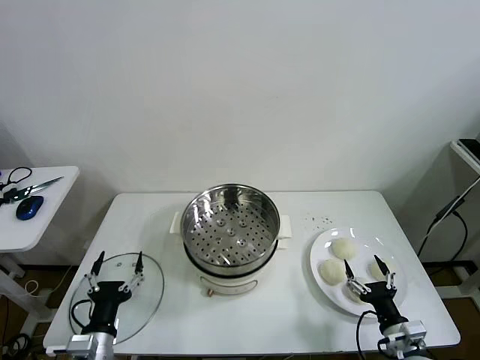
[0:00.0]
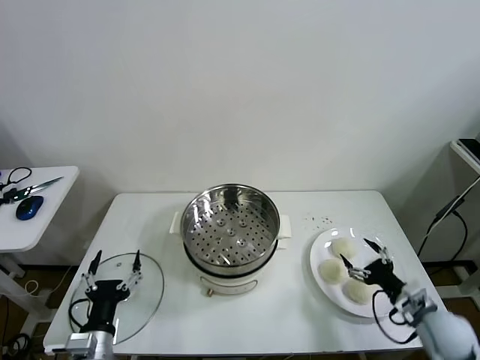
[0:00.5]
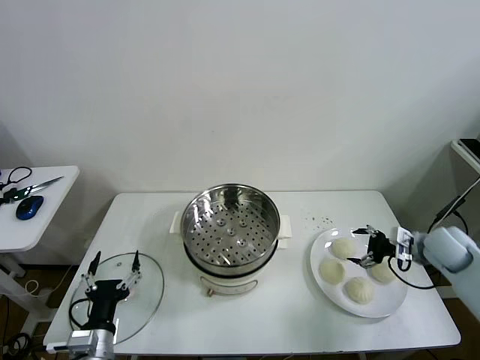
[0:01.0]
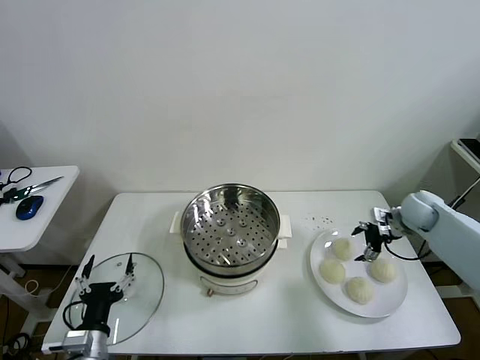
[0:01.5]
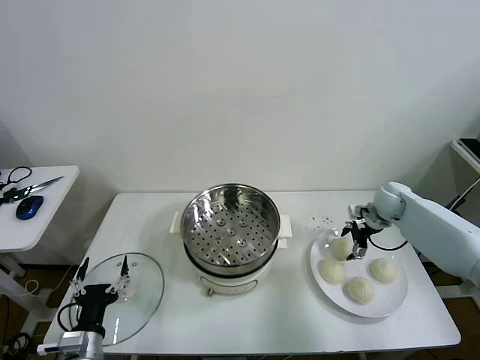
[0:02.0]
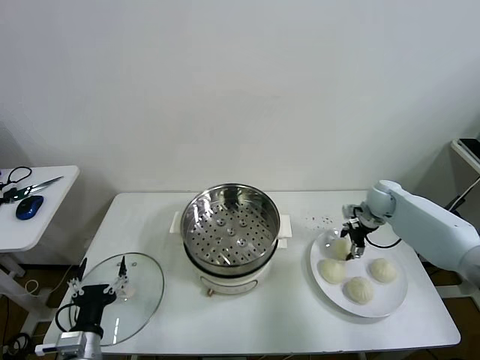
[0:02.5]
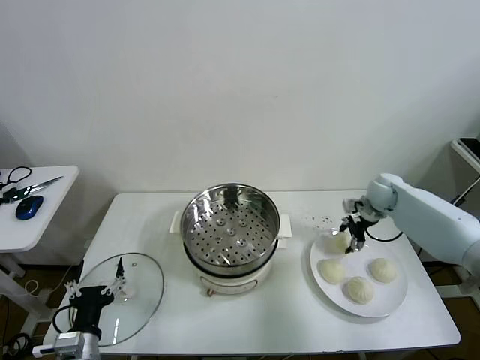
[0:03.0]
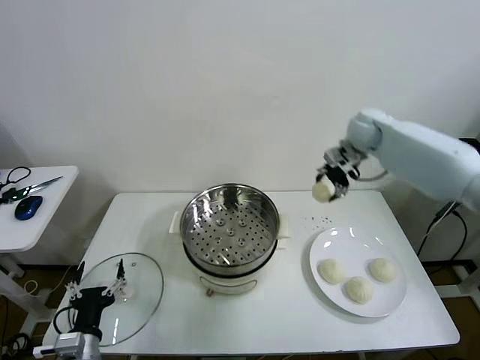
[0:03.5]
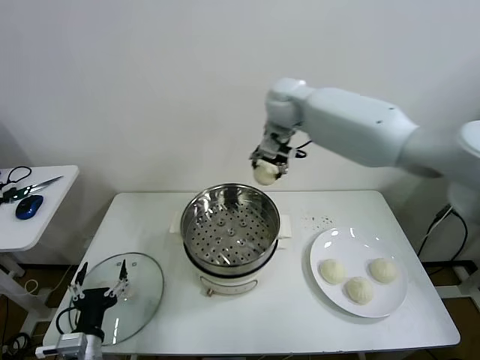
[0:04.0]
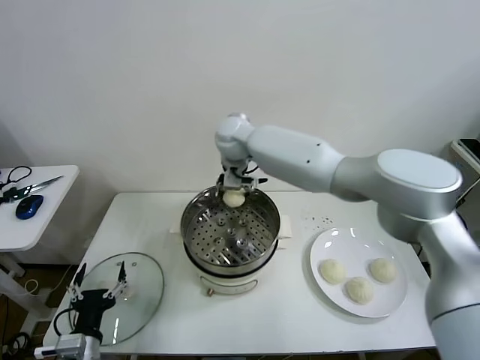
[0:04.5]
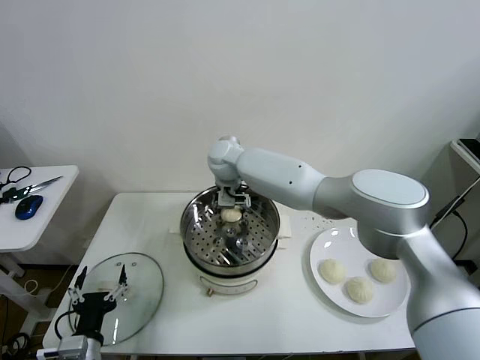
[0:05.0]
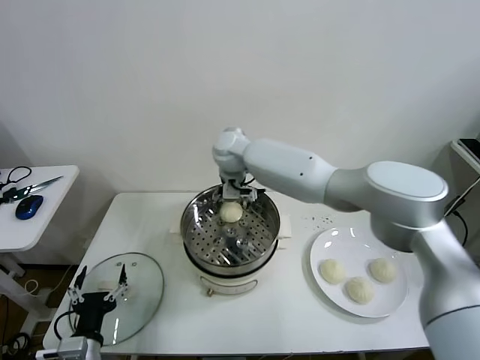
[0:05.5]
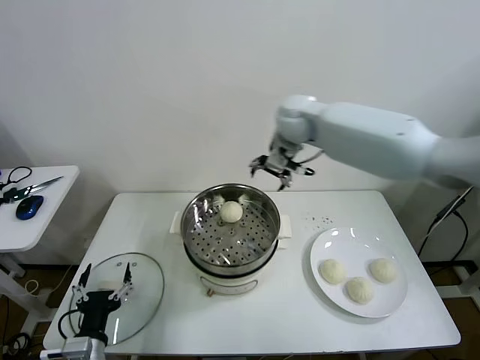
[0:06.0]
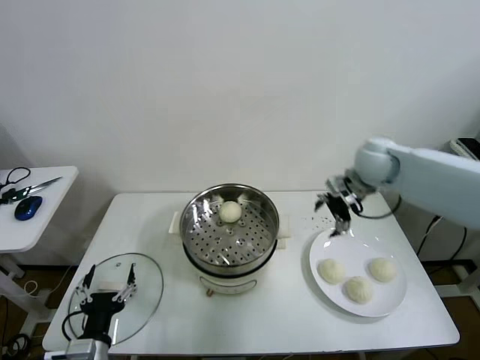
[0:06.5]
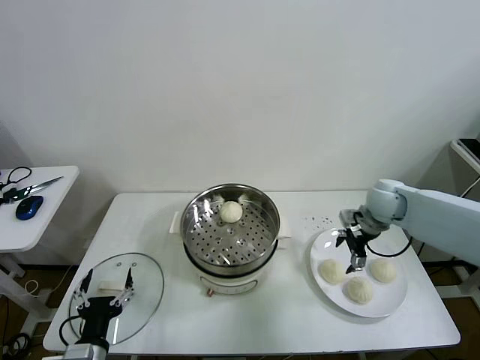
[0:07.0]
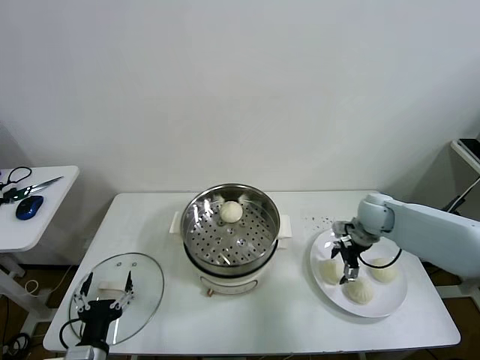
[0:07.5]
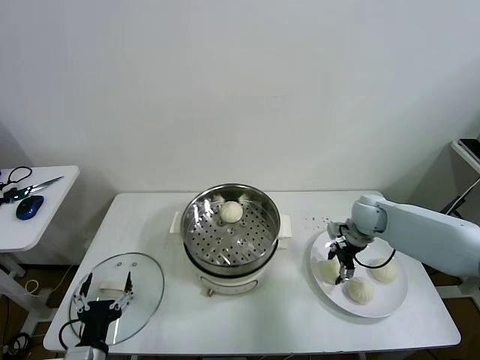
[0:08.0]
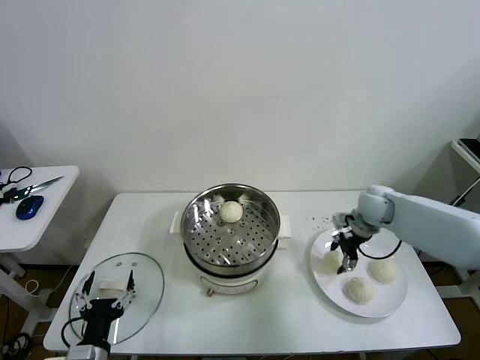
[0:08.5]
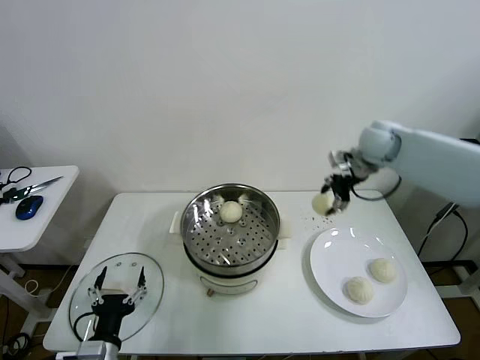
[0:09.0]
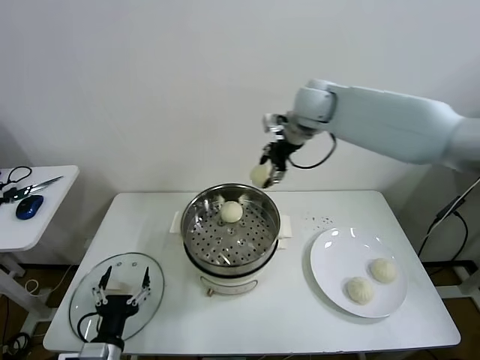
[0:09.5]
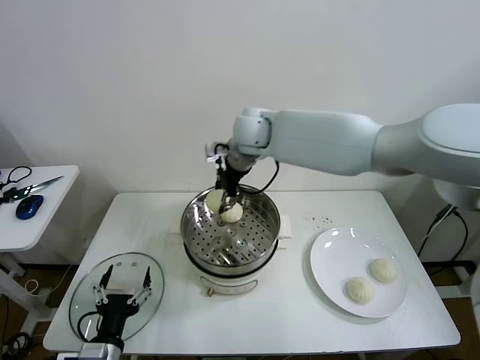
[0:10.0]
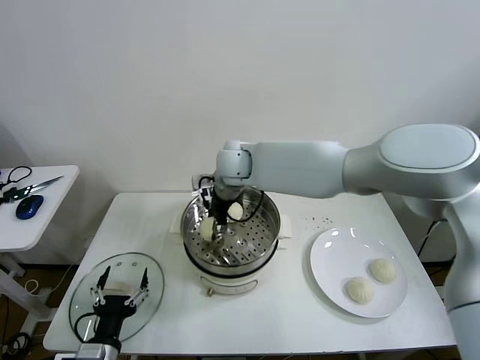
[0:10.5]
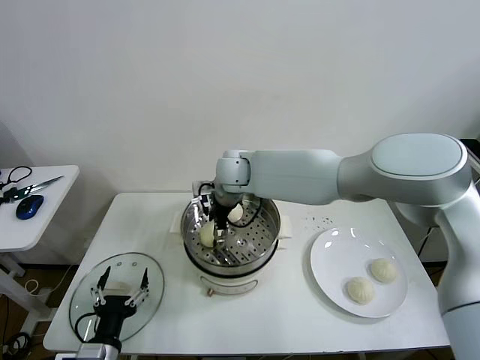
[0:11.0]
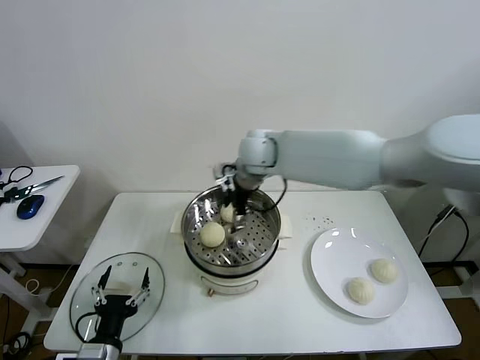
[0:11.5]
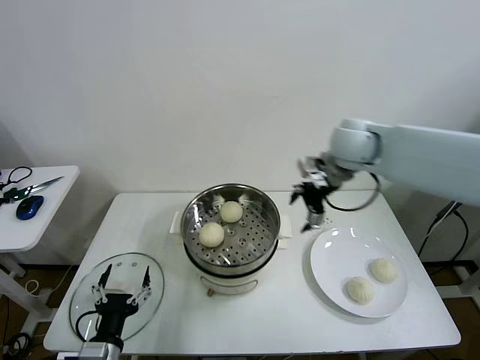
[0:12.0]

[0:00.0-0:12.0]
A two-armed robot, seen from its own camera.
Task of the whole recording: take steamed baozi put them in steamer then cover it.
Step, 0:00.0 to 0:02.5: Grasp the baozi in the plate with right gripper.
Step, 0:03.0 to 0:05.0: Place the baozi on the steamer with right gripper.
Step, 0:05.5 to 0:08.0: Grasp the baozi in the plate with right gripper.
Step, 0:08.5 to 0:11.0: Place the baozi on the steamer with right gripper.
0:02.0 to 0:04.0: The right gripper travels to the left and upward by approximately 40 cm, and closes.
0:04.0 to 0:06.0: The right gripper heads to the right, covering about 10 cm, and opens its fingers.
0:06.0 to 0:08.0: The right gripper heads downward and to the right, covering about 30 cm, and closes its fingers.
0:08.0 to 0:10.0: The right gripper is displaced to the left and upward by some 40 cm.
0:10.0 to 0:12.0: The right gripper heads to the right, covering roughly 25 cm, and opens up.

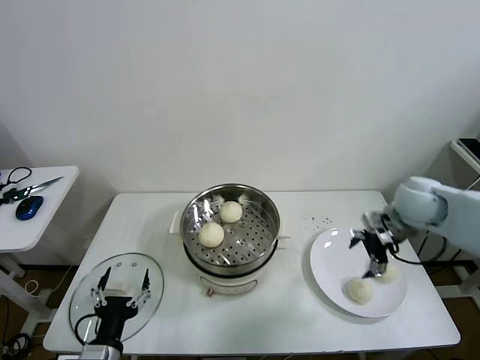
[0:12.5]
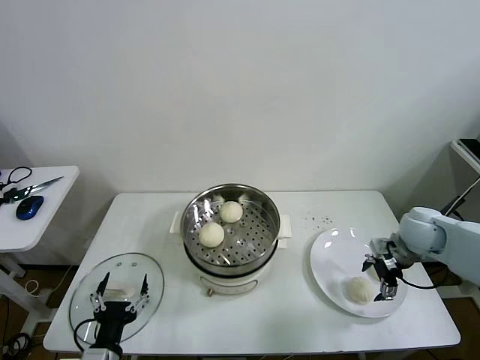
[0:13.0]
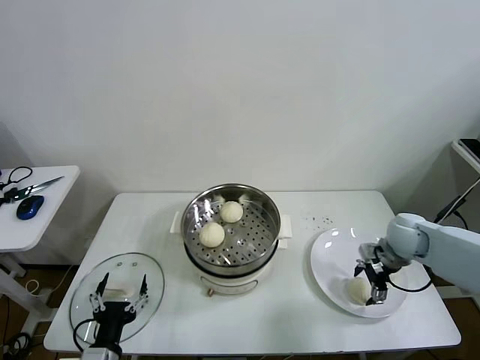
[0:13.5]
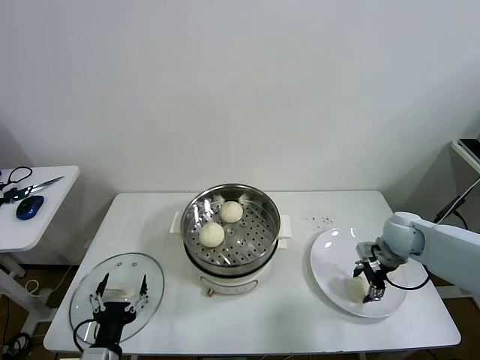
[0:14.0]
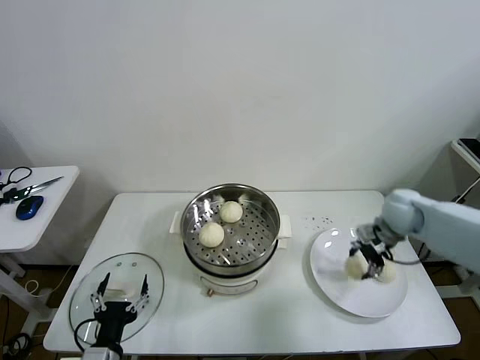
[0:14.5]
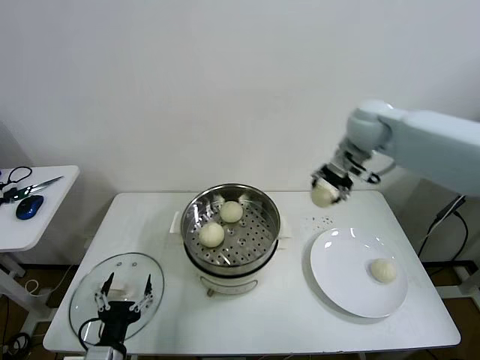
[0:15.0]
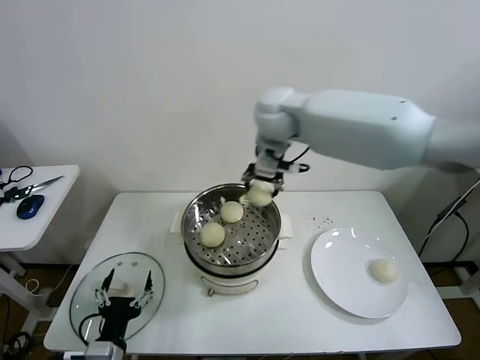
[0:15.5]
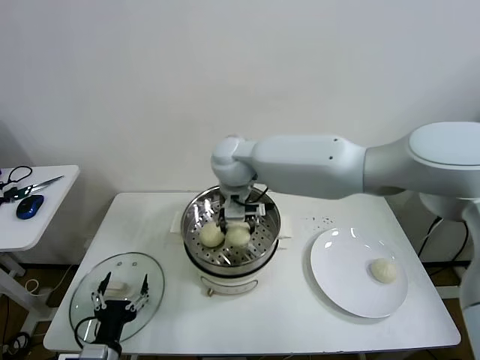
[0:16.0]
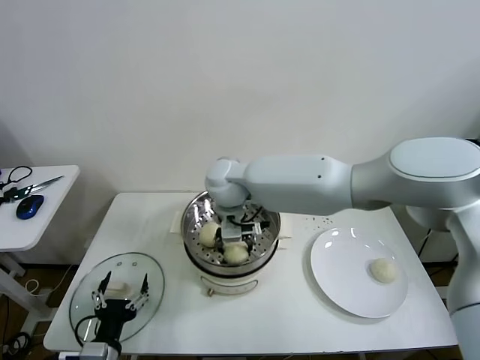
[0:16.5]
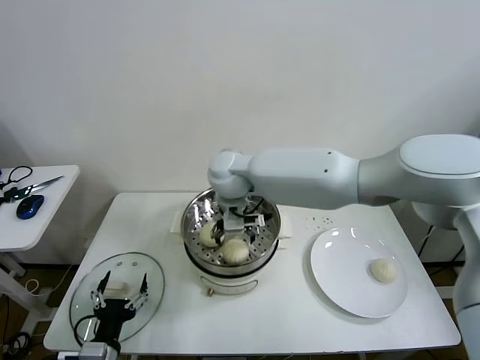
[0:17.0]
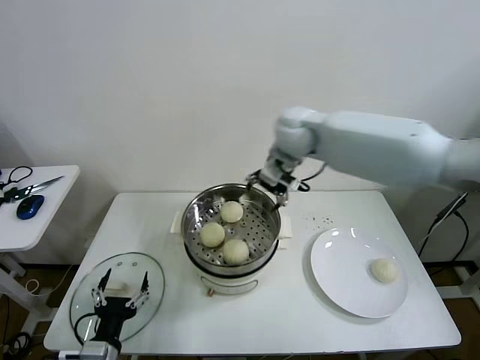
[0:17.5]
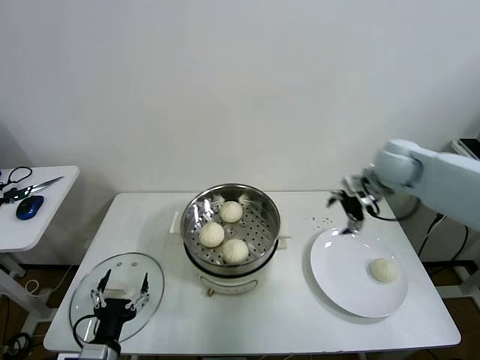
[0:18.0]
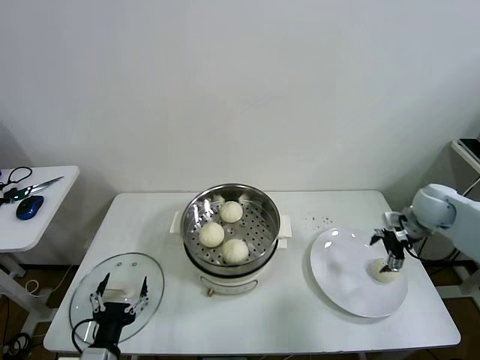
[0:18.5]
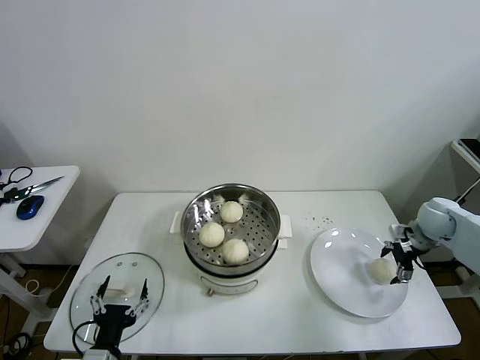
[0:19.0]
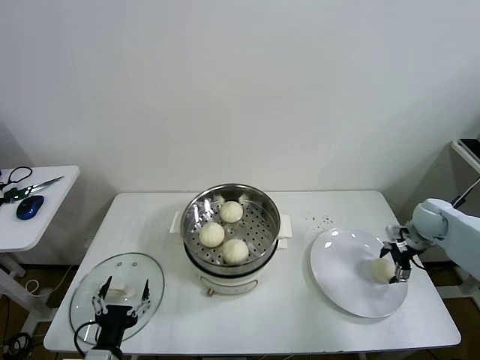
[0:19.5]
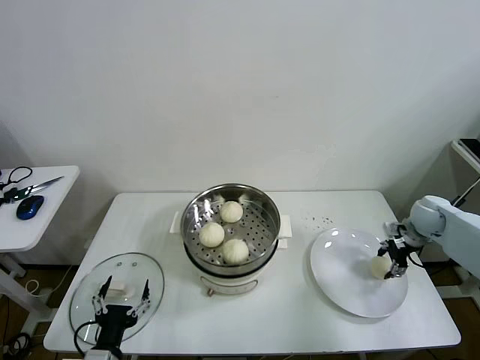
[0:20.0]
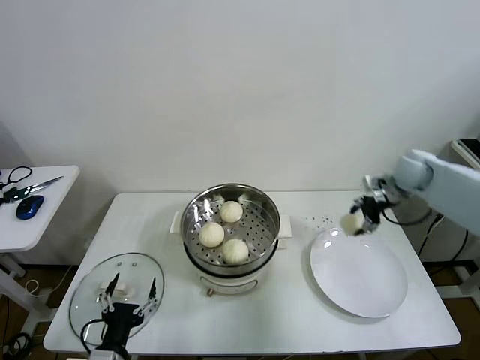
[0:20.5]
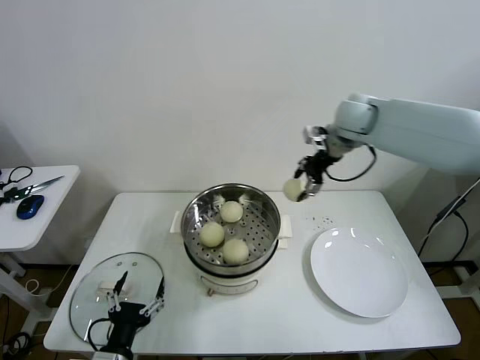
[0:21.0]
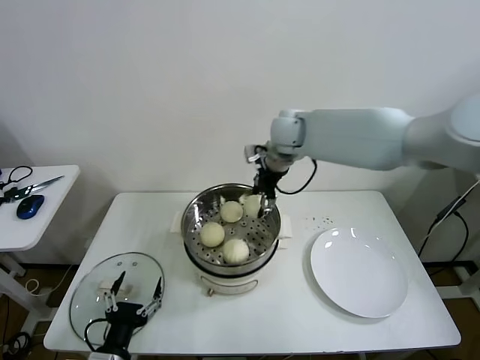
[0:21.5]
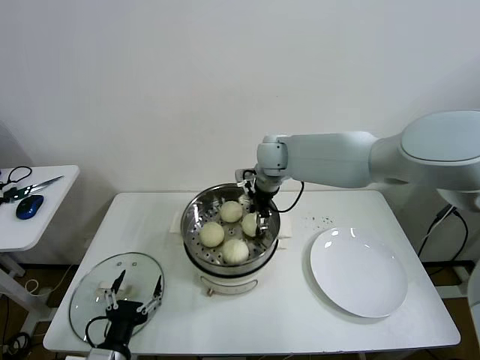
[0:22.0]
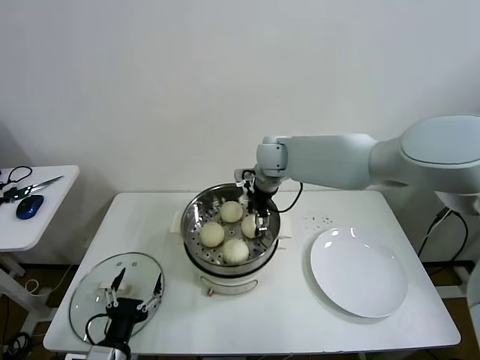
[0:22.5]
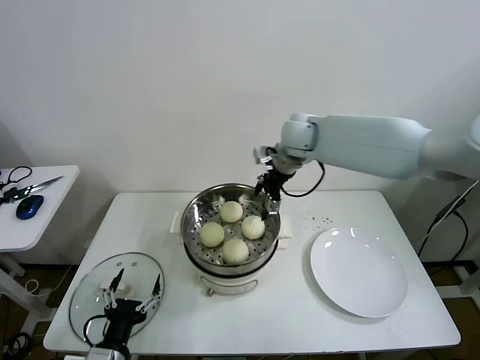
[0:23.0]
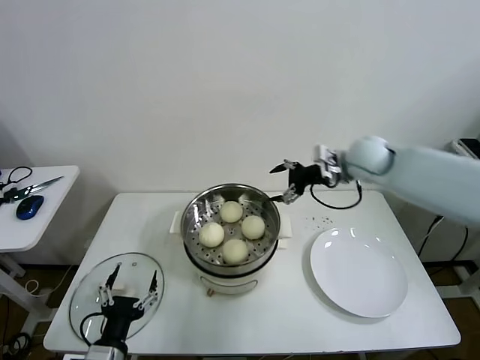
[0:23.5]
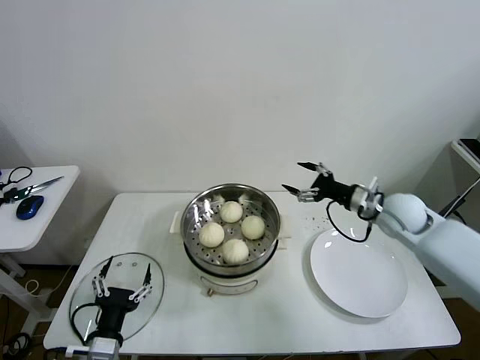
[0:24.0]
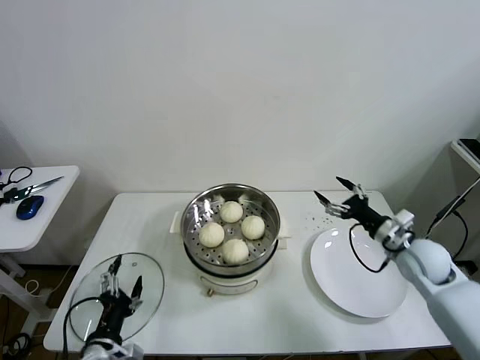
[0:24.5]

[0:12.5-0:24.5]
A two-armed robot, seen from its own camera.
Task of the whole recording: take steamed baozi put them in steamer then cover it.
Step, 0:12.5 to 0:14.0: Grasp the baozi in the plate with right gripper.
Step, 0:14.5 to 0:16.5: Place the baozi on the steamer with right gripper.
Step, 0:17.0 to 0:19.5: Grasp the baozi in the plate with right gripper.
Step, 0:20.0 to 0:22.5: Place the baozi on the steamer with right gripper.
0:12.5 to 0:14.5: The right gripper closes its fingers.
0:14.5 to 0:16.5: The right gripper shifts some 40 cm to the left.
0:16.5 to 0:18.5: The right gripper moves to the right, some 50 cm, and opens its fingers.
0:18.5 to 0:20.5: The right gripper moves forward and upward, roughly 10 cm, and closes up.
0:20.5 to 0:22.5: The right gripper shifts about 35 cm to the left, and opens.
0:22.5 to 0:24.5: The right gripper travels to the right, backward and downward by about 40 cm.

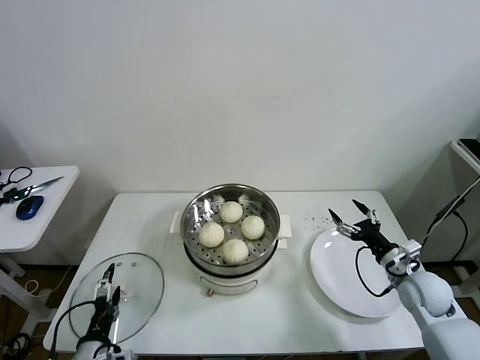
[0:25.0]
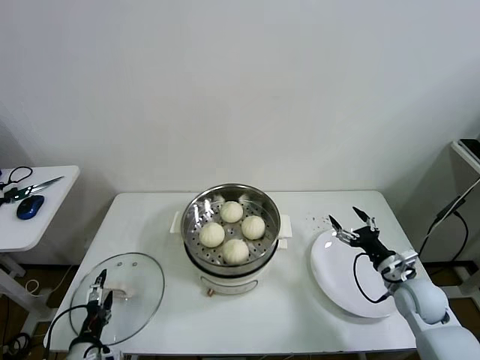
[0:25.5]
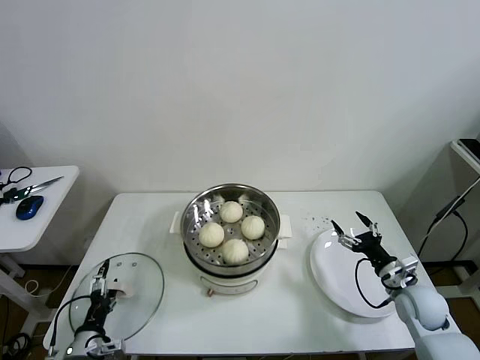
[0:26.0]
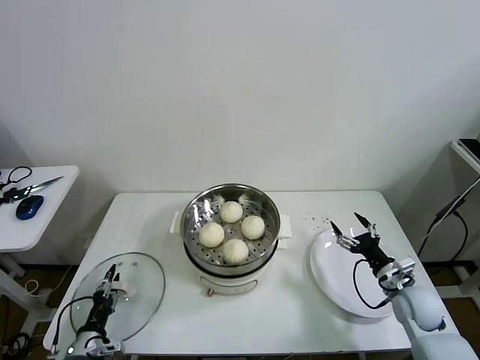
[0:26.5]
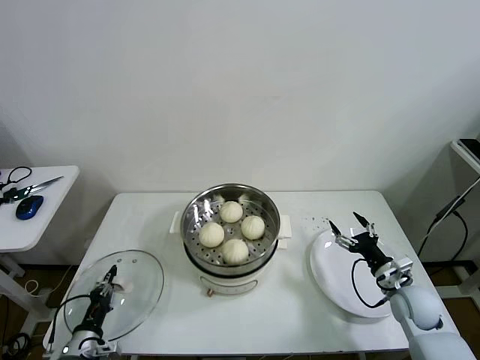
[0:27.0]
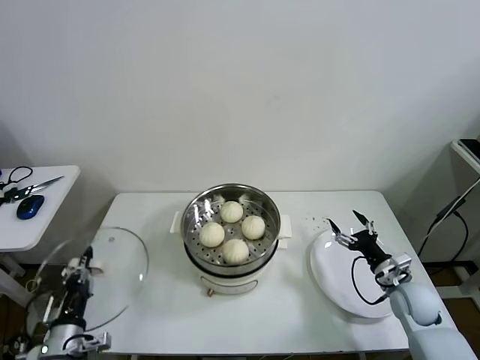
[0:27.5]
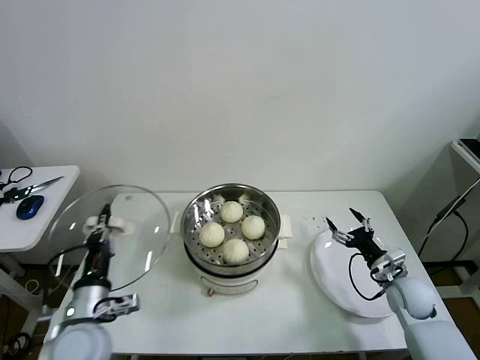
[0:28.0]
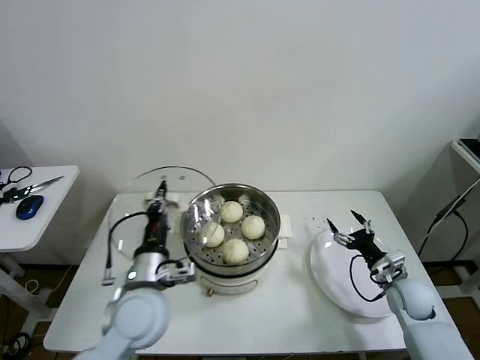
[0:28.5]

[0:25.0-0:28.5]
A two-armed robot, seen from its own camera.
Task of the whole recording: take steamed baozi put them in steamer then cover it.
0:25.0 to 0:27.0: The right gripper ends up roughly 5 cm from where it was, while the left gripper travels downward and to the left by some 10 cm, and closes its fingers.
0:27.0 to 0:28.5: The left gripper heads upward and to the right, covering about 30 cm.
